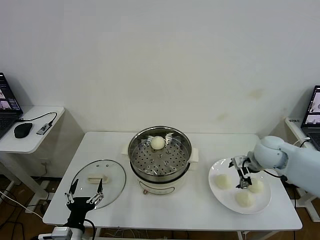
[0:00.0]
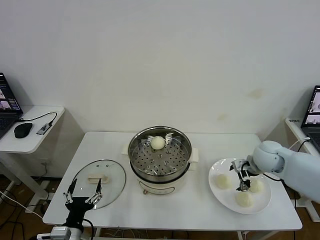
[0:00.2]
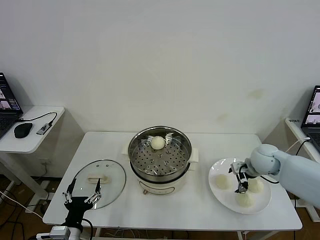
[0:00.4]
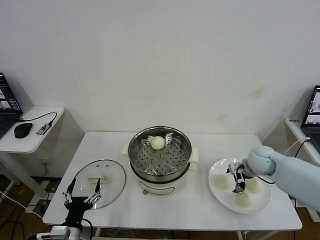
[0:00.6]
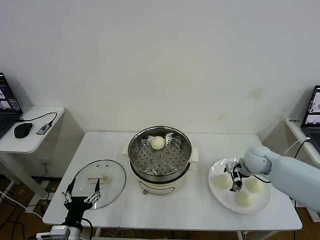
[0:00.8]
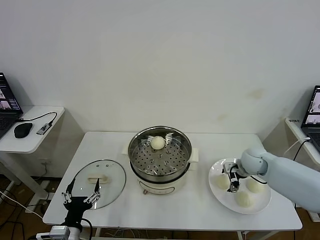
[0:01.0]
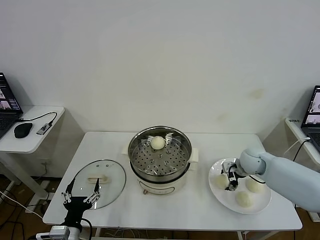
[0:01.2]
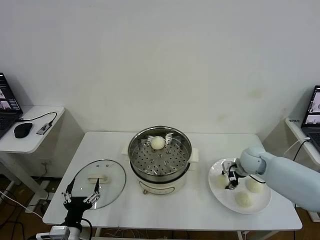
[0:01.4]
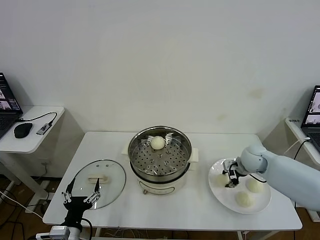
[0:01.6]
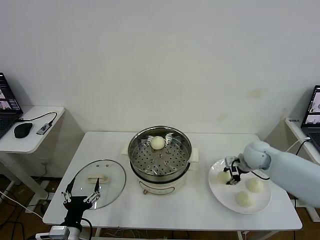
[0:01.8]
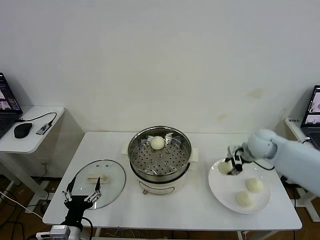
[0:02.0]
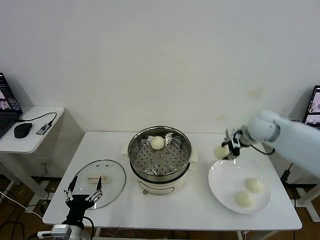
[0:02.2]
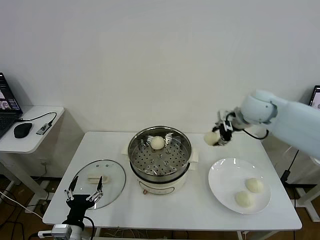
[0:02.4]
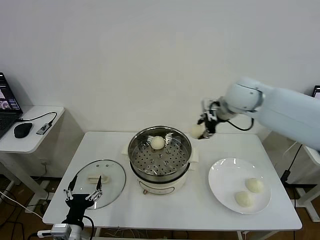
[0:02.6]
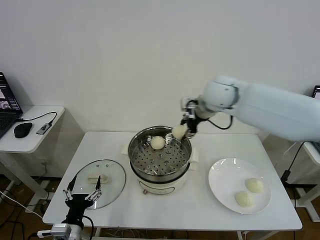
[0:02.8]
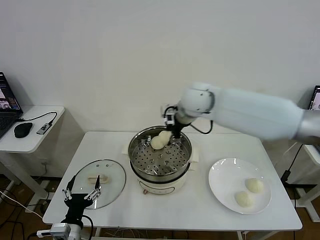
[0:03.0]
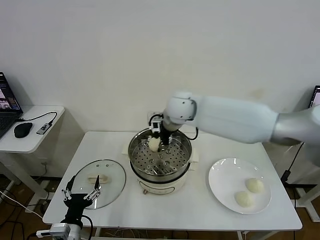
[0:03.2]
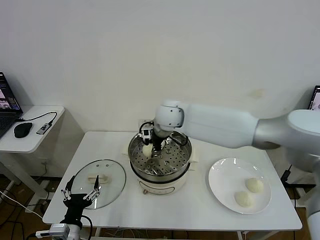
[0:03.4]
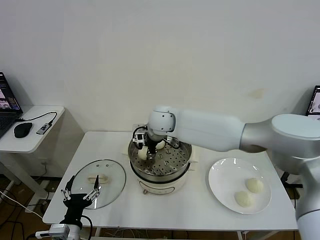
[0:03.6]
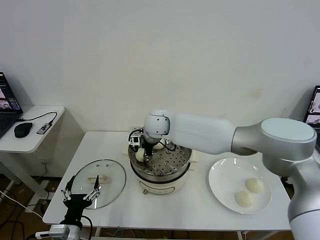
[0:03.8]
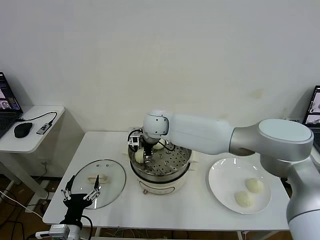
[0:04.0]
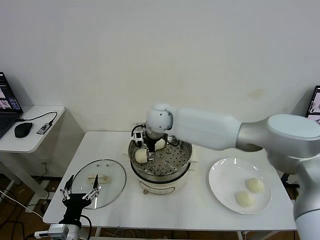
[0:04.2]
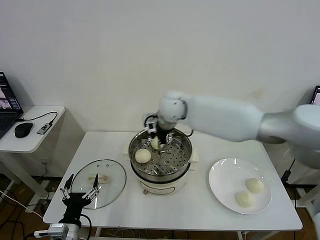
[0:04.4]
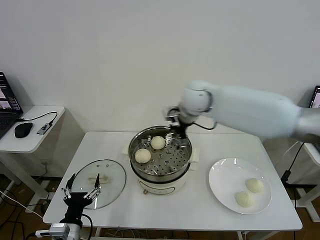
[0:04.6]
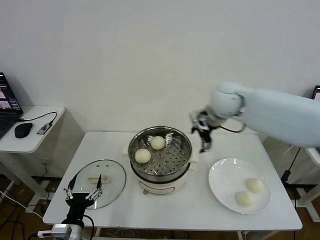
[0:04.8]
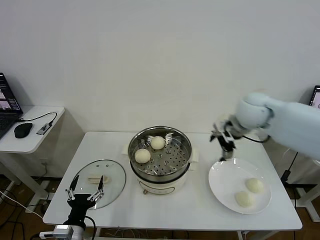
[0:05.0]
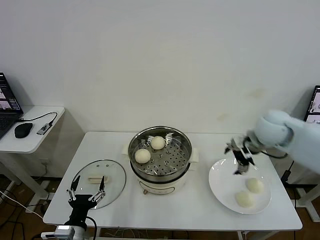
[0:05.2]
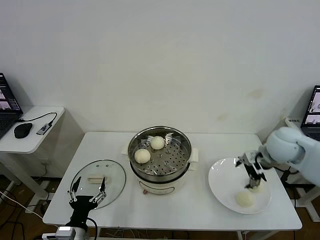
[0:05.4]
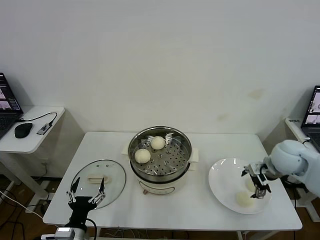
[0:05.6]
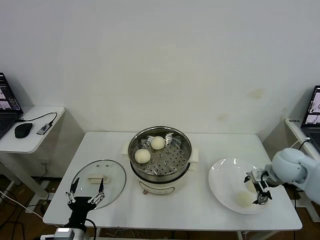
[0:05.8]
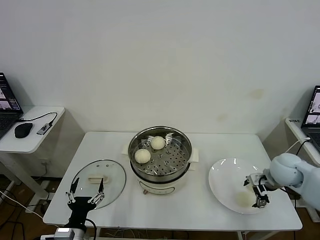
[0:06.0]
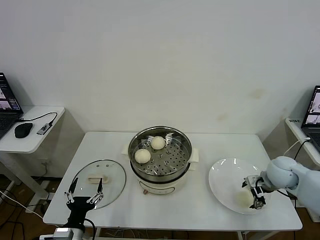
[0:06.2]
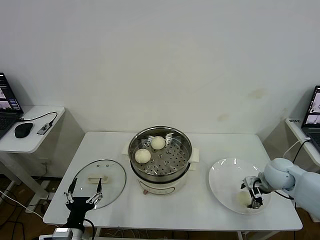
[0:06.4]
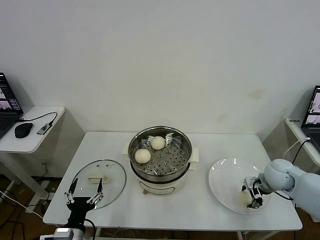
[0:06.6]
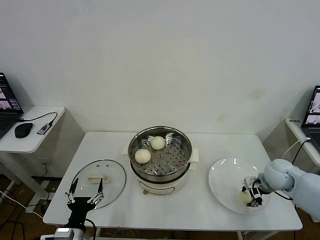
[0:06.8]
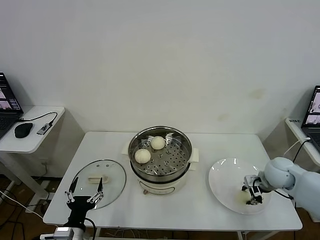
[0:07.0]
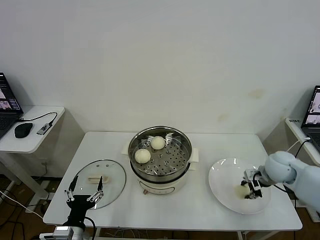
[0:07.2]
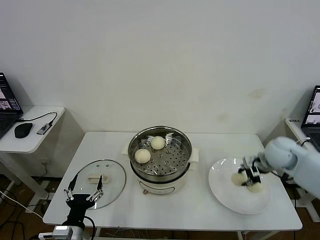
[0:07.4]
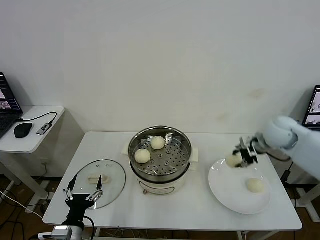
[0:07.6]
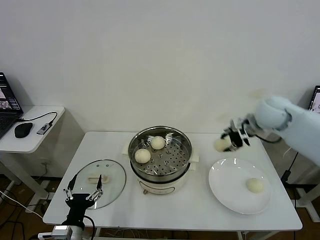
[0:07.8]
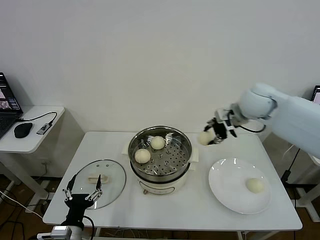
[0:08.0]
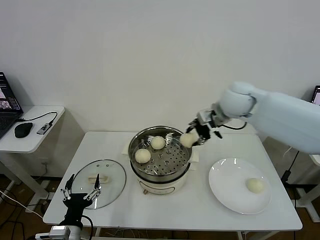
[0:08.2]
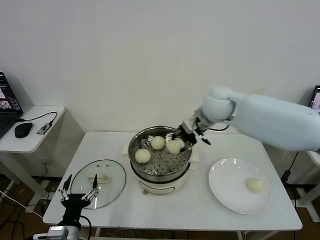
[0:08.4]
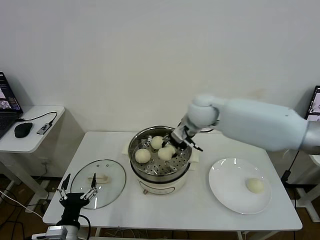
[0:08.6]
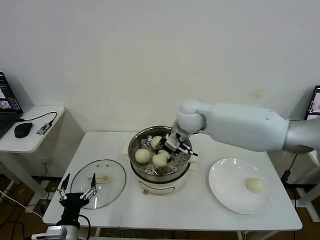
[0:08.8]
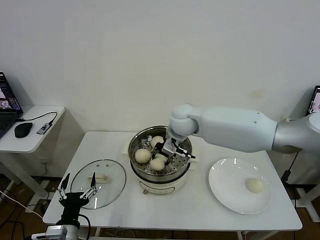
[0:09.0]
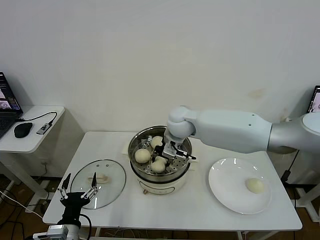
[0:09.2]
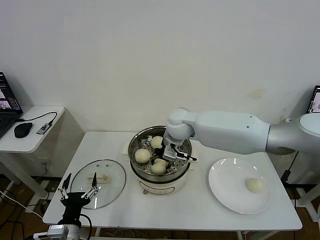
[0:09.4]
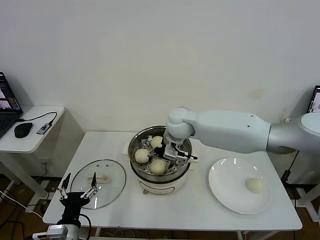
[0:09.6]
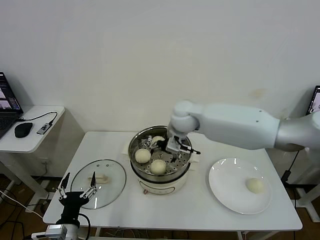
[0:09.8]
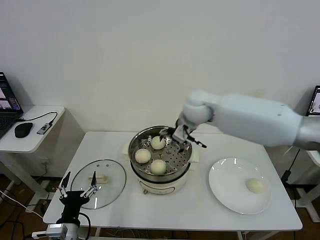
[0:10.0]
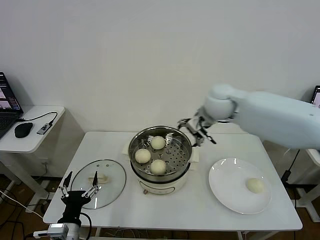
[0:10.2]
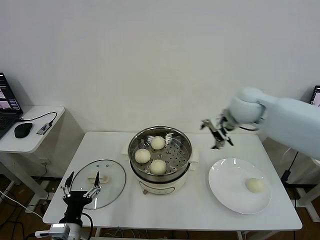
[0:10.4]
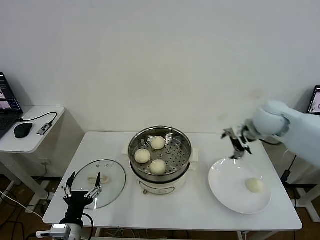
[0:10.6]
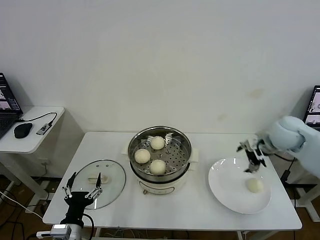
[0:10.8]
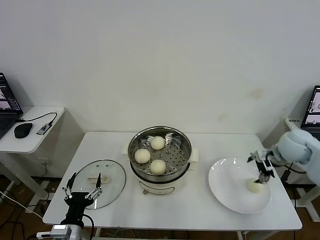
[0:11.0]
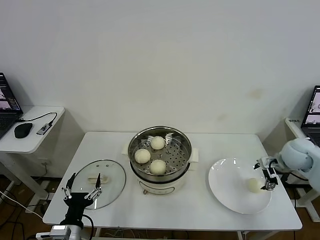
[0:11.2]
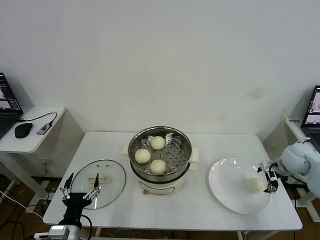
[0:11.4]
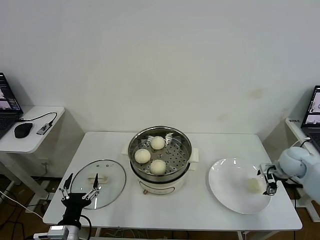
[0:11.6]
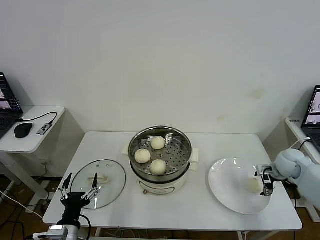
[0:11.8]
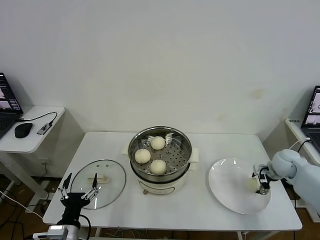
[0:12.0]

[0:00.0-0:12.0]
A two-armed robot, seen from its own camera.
Task of the whole recording: take steamed baozi put them in steamer then cover it.
Step, 0:01.8 to 0:04.0: Place the baozi on the steamer with right gripper.
Step, 0:04.2 to 0:06.8: Grasp the baozi in the plate with right gripper.
Step, 0:07.2 to 0:09.6: Place the baozi on the steamer with right gripper.
0:00.0 to 0:01.6: The right gripper travels downward by about 5 cm, and closes its fingers.
0:01.6 to 0:03.0: The right gripper is displaced to the left and upward by some 35 cm.
0:03.0 to 0:04.4: The right gripper travels to the left and back again, some 10 cm each way, and opens its fingers.
0:04.4 to 0:06.0: The right gripper shifts roughly 40 cm to the right, downward and backward.
0:06.0 to 0:07.6: The right gripper shifts approximately 15 cm upward and forward, and closes.
0:07.6 to 0:09.0: The right gripper is displaced to the left by some 30 cm.
0:09.0 to 0:10.4: The right gripper travels to the right by roughly 20 cm, and opens its fingers.
0:10.4 to 0:12.0: The right gripper goes approximately 30 cm downward and to the right.

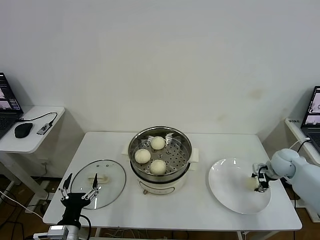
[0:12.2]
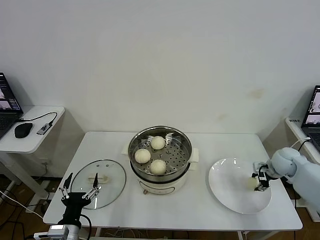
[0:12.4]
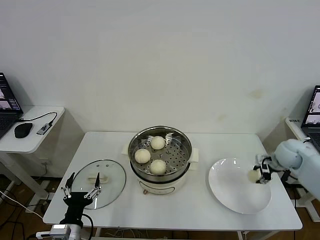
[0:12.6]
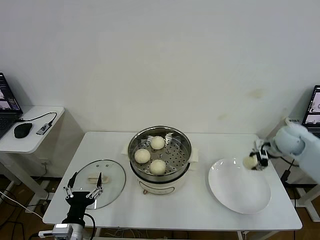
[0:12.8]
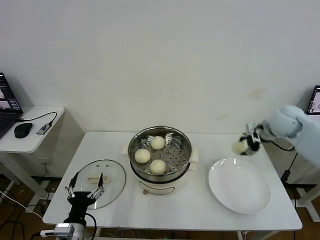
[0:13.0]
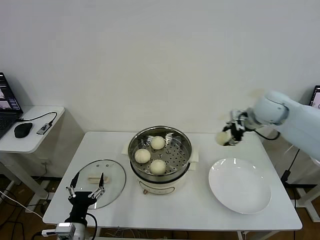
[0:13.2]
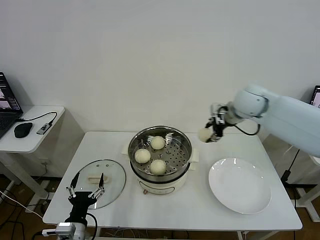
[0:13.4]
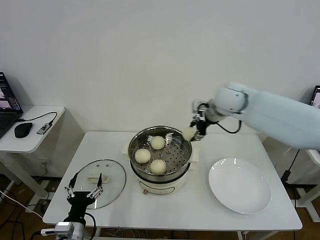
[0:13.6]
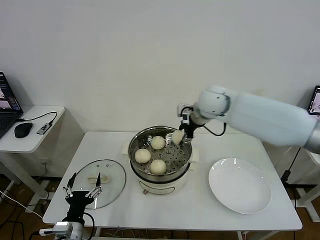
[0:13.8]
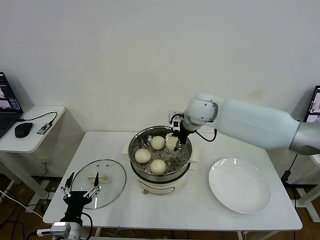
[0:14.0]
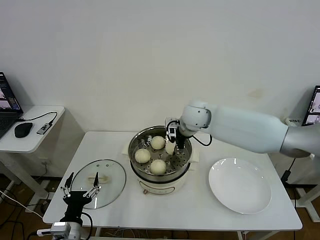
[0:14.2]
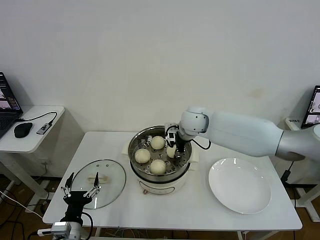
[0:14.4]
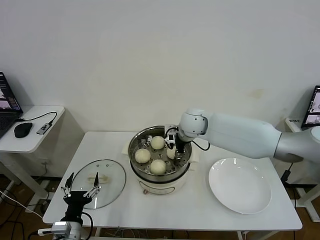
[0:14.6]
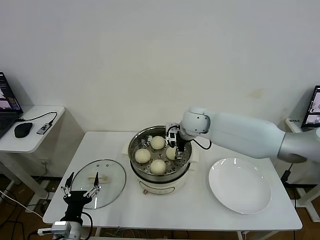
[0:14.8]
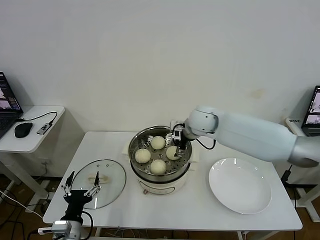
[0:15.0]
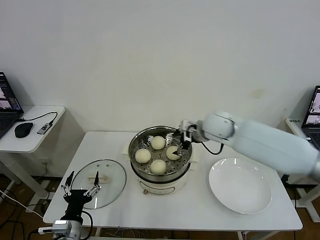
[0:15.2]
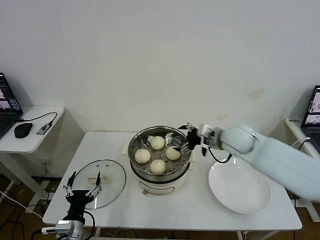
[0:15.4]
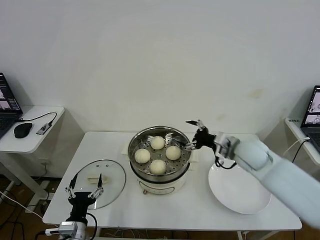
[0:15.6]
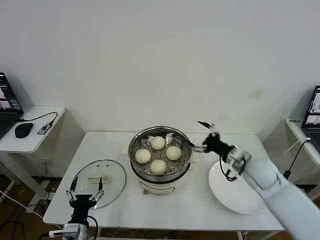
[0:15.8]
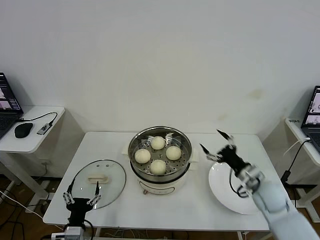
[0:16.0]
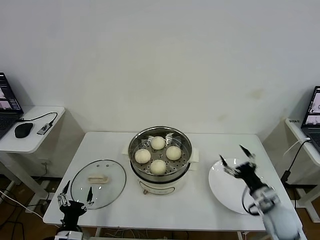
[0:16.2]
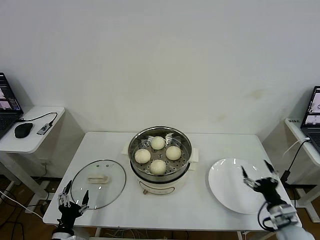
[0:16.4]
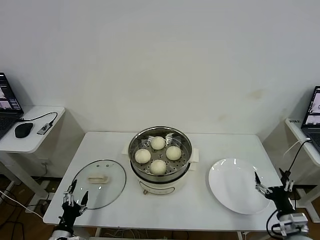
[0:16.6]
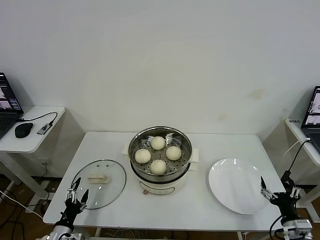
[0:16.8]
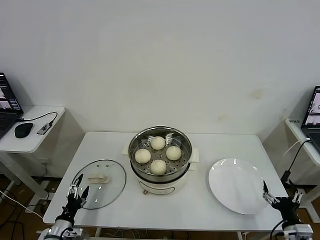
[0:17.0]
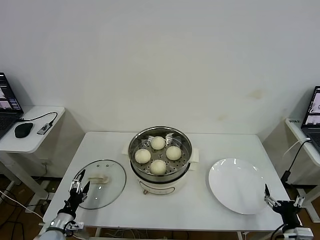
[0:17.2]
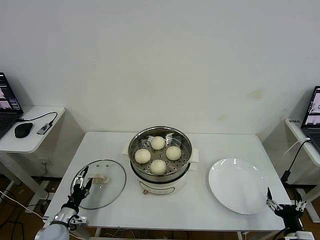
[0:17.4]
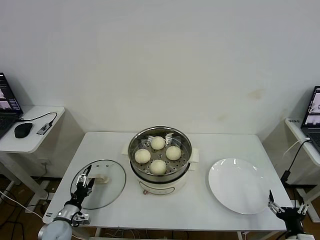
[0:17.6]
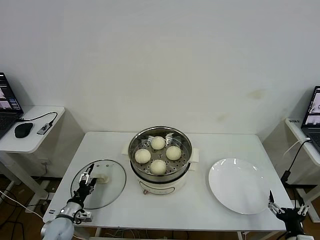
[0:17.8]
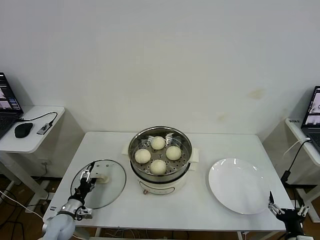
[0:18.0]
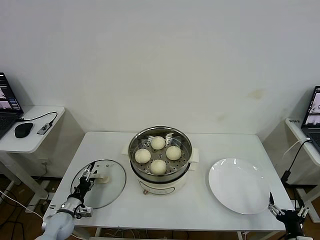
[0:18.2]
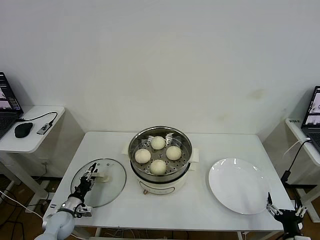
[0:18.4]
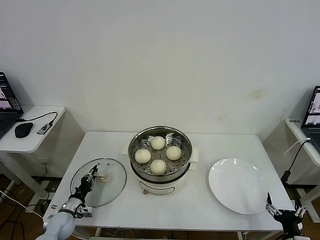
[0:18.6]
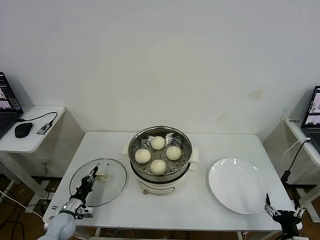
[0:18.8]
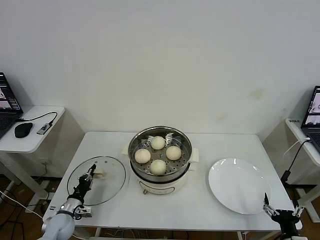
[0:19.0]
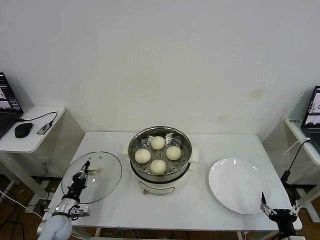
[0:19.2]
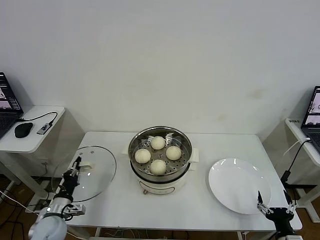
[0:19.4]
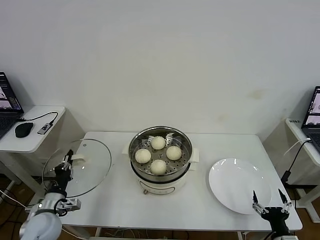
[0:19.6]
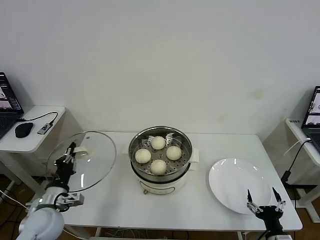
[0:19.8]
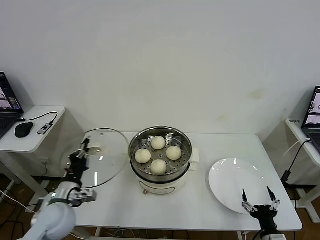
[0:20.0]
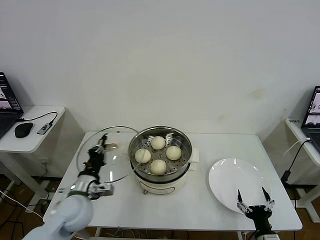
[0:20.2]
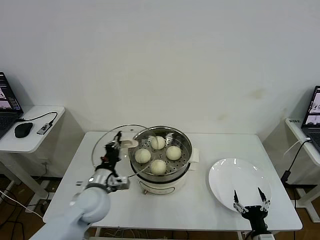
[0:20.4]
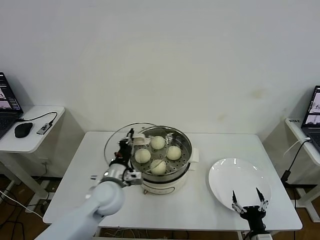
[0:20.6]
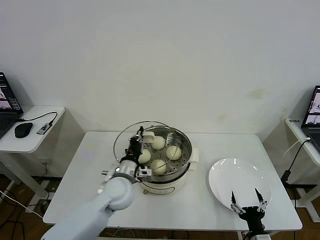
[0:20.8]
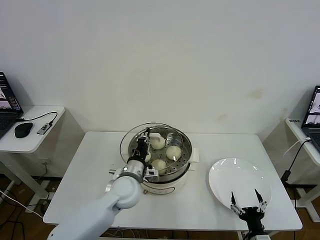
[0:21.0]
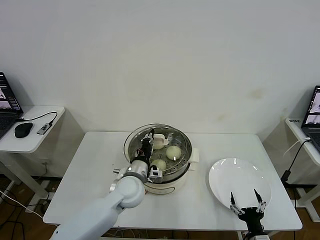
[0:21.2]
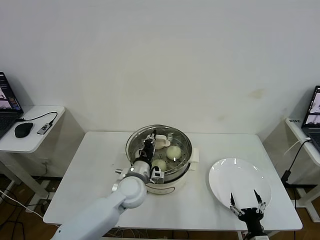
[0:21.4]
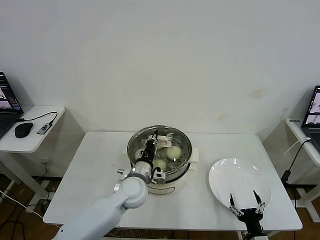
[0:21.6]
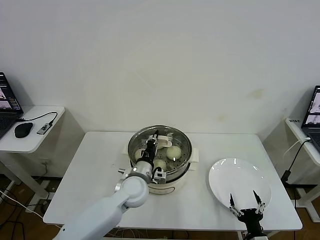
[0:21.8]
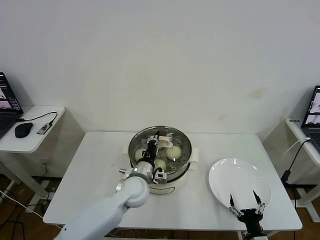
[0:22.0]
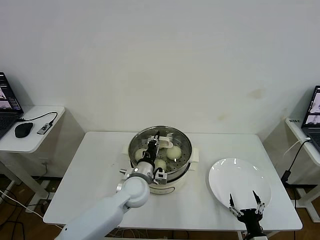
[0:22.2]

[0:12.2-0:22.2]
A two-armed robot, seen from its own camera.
Task of the whole recording: take steamed baozi put them in steamer then cover it.
Step, 0:12.6 to 0:14.8: Place the baozi on the steamer with right gripper.
Step, 0:15.0 to 0:18.8: Grasp the pot lid with left gripper.
0:12.2 to 0:13.6: The right gripper heads to the left and upward, covering about 35 cm.
0:13.6 to 0:15.0: The right gripper shifts approximately 10 cm downward and to the left, and opens up.
0:15.0 to 0:16.4: The right gripper shifts some 50 cm backward, to the right and downward; the left gripper travels downward by approximately 5 cm.
0:16.4 to 0:18.0: The left gripper travels forward and downward by some 15 cm. The right gripper goes some 10 cm backward.
0:18.0 to 0:19.4: The left gripper moves upward, approximately 5 cm, and closes.
0:19.4 to 0:20.8: The left gripper heads to the right and upward, covering roughly 25 cm. The right gripper shifts approximately 5 cm to the left.
0:20.8 to 0:22.2: The left gripper shifts approximately 5 cm to the right.
